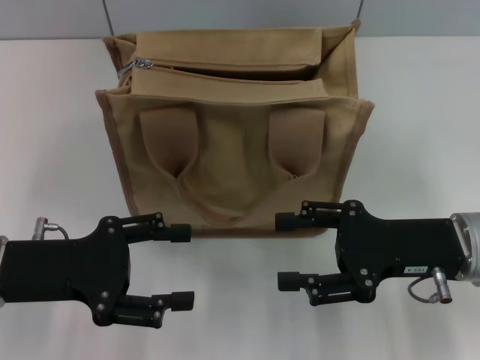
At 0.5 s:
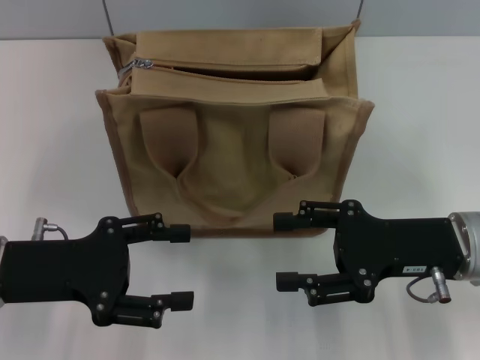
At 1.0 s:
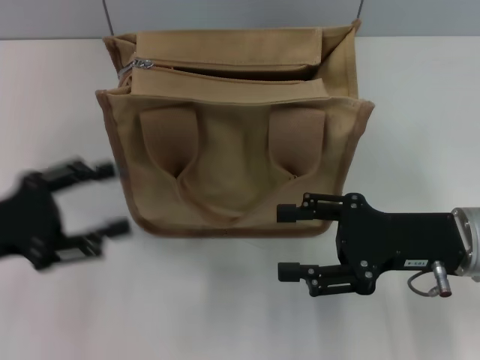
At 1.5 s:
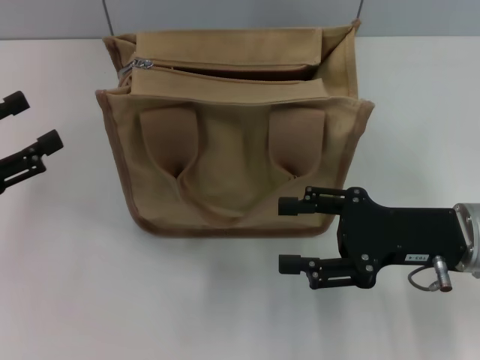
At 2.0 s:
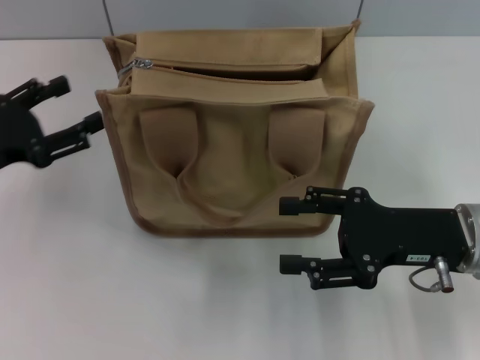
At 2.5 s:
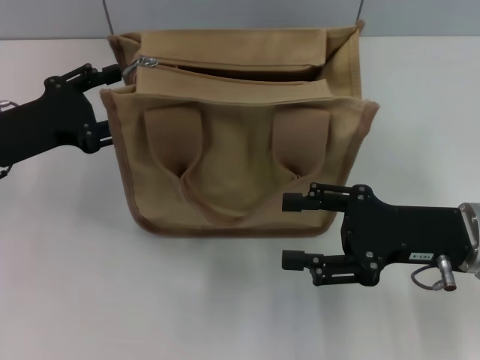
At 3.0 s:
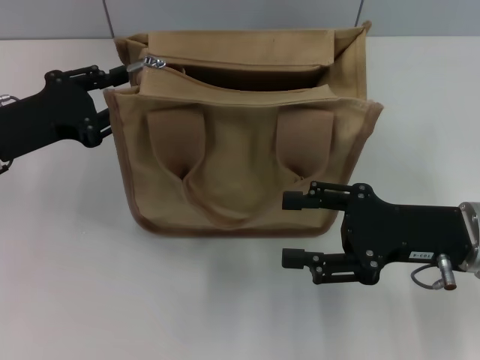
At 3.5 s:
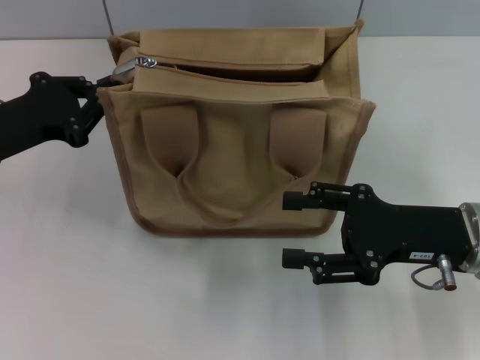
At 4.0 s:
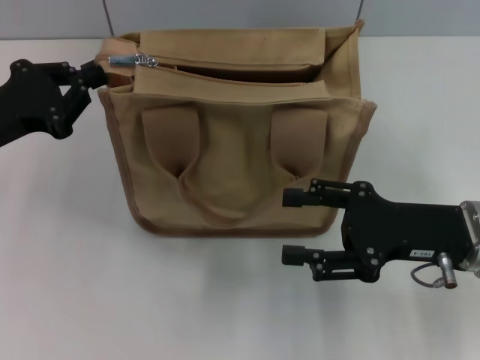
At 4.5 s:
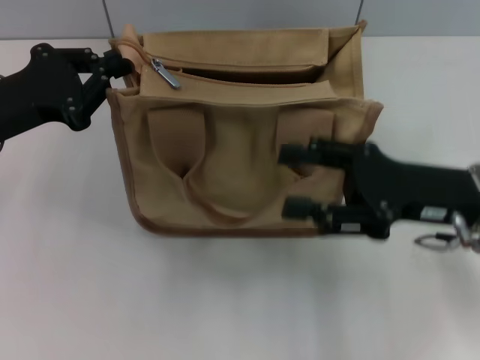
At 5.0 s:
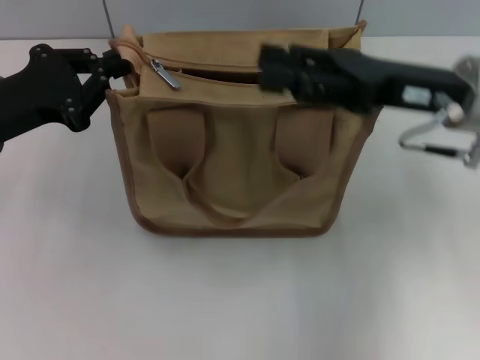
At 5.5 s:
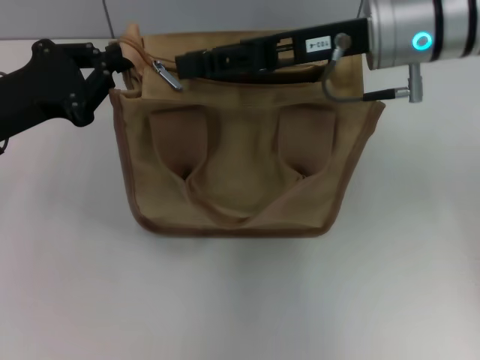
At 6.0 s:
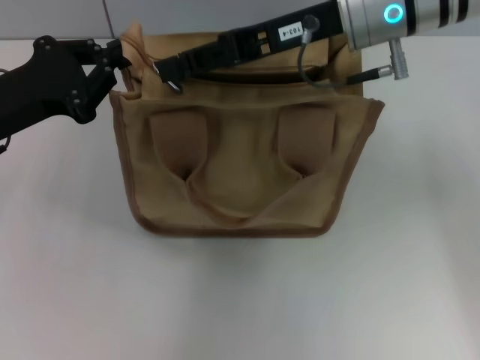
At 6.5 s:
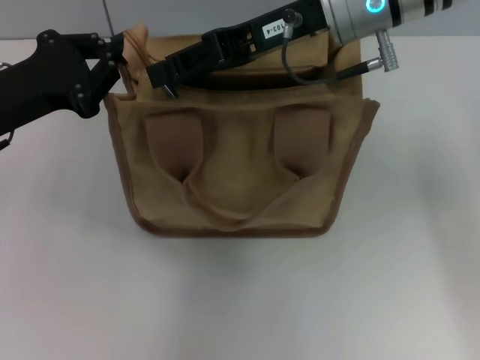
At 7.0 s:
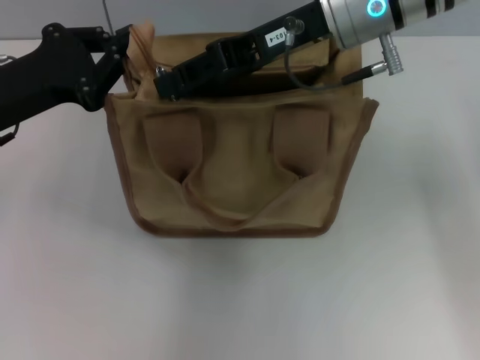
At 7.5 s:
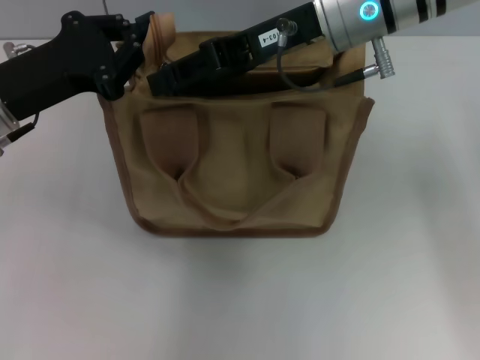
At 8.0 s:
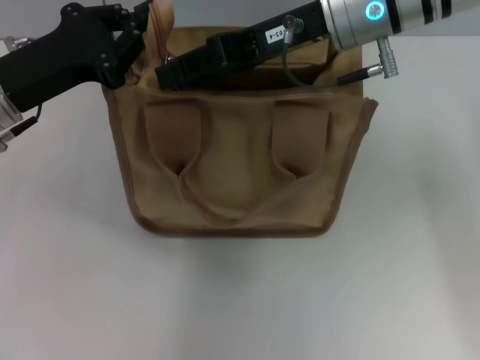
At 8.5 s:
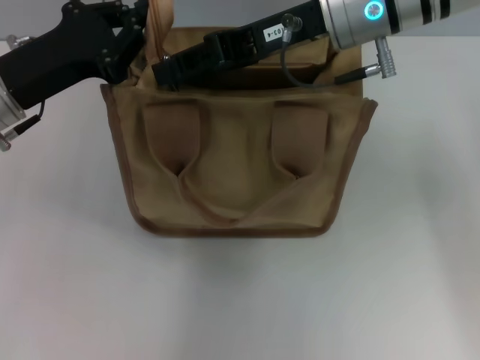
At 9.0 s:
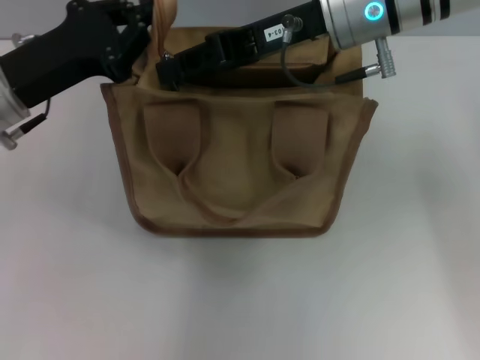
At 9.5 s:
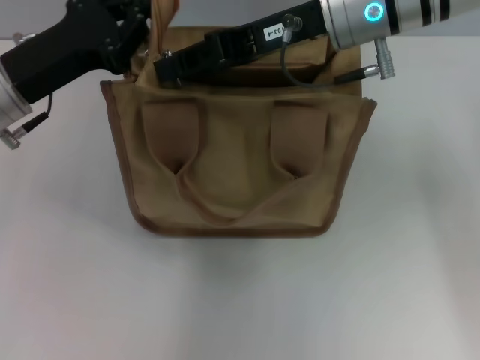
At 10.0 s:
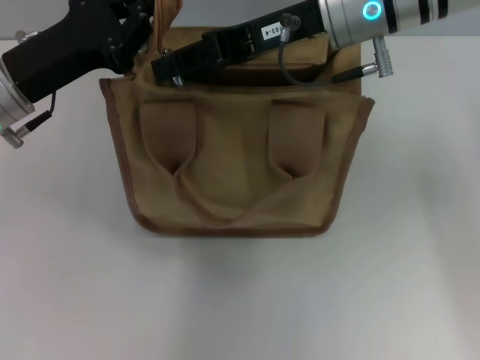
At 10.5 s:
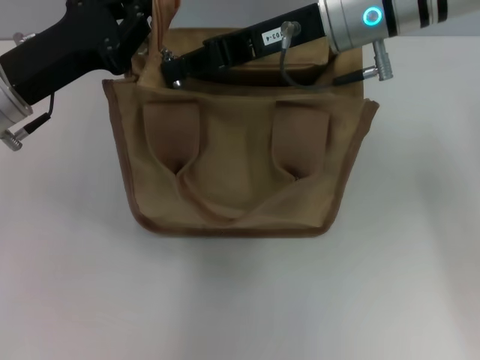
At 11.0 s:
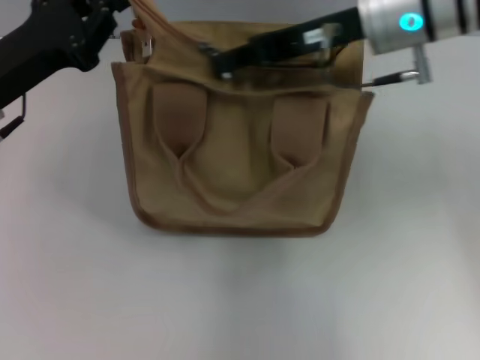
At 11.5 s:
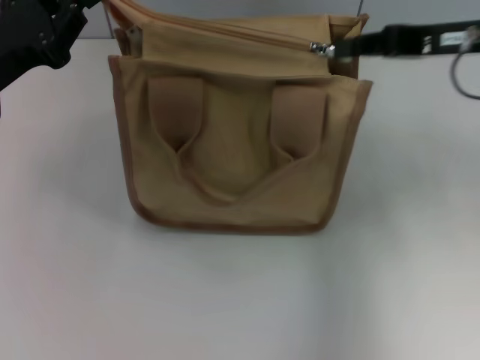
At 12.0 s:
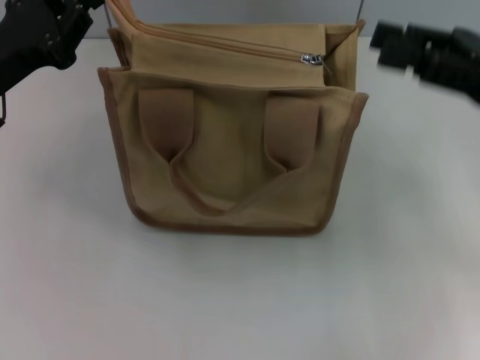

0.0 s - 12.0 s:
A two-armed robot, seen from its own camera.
Step, 0.0 s - 11.5 s: Pull up the zipper with your right hand.
0.0 s - 2.0 s: The left gripper heads to the left and forward, covering roughly 10 cm.
2.0 s - 4.0 s: The left gripper closes its fingers.
4.0 s - 6.0 s: The right gripper goes about 25 cm upward, forward and to the left, and closes.
6.0 s - 10.0 s: The grippers stay close to where they were, moving slightly.
10.0 s - 12.0 s: The right gripper shifts some 20 cm to the right and backward.

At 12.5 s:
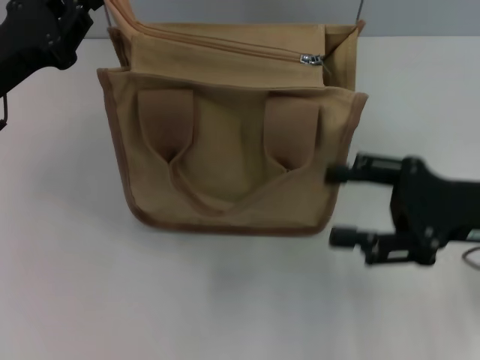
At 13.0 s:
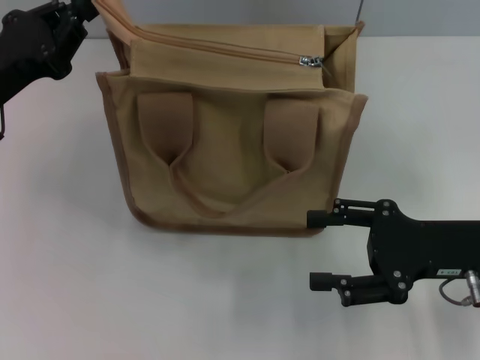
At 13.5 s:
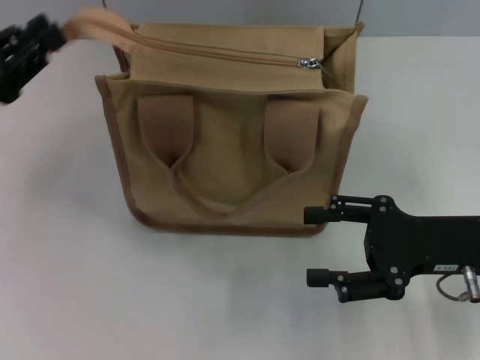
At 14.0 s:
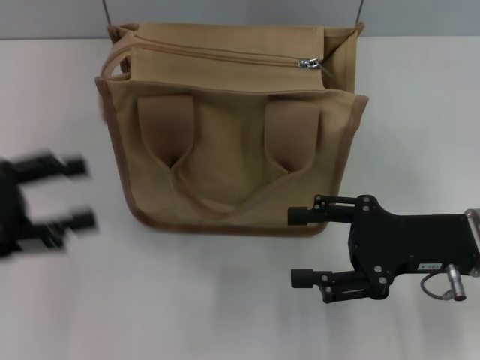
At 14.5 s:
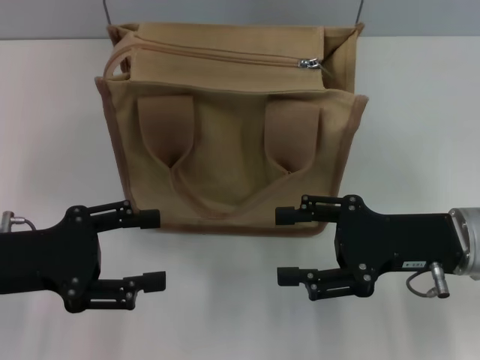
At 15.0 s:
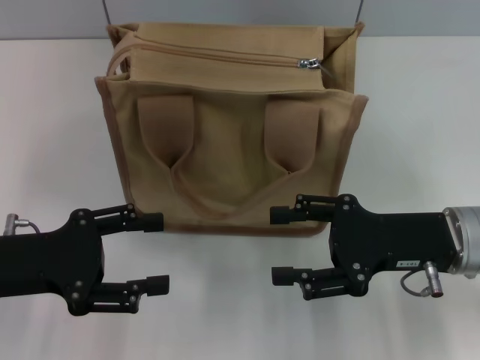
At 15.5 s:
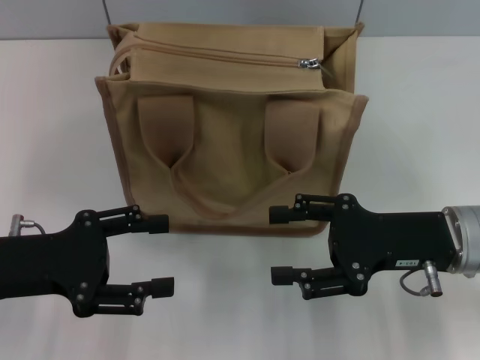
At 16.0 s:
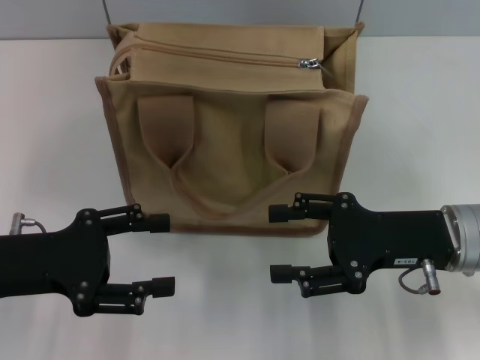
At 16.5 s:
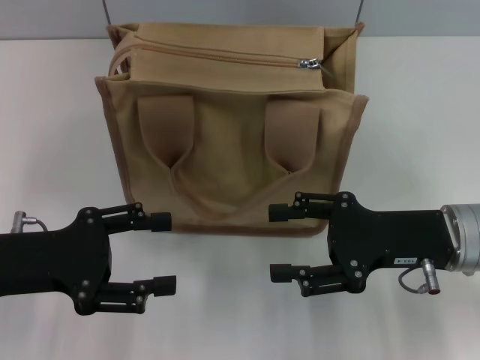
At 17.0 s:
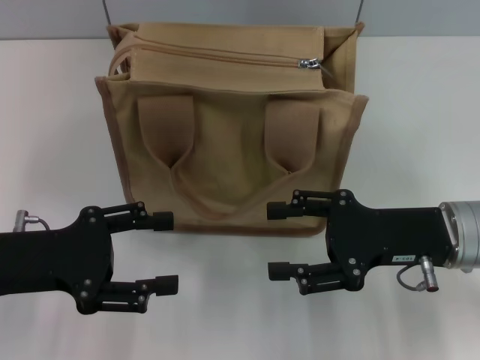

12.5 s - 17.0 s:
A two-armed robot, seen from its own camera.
Step, 12.5 s - 13.5 s: Grab the zipper with your left hand.
12.5 s - 14.5 s: The left gripper goes roughly 10 cm backward, and opens its fingers.
14.5 s - 17.0 s: Neither gripper changes place.

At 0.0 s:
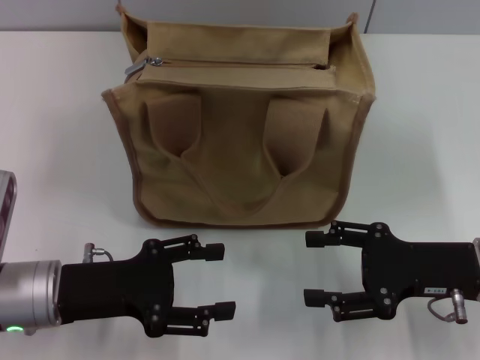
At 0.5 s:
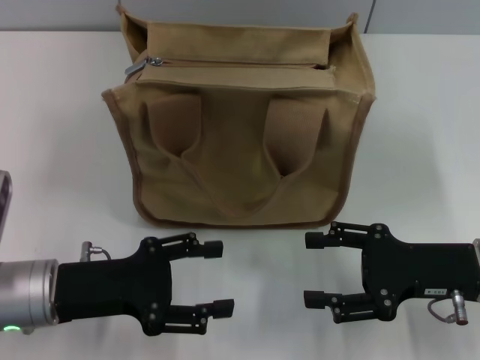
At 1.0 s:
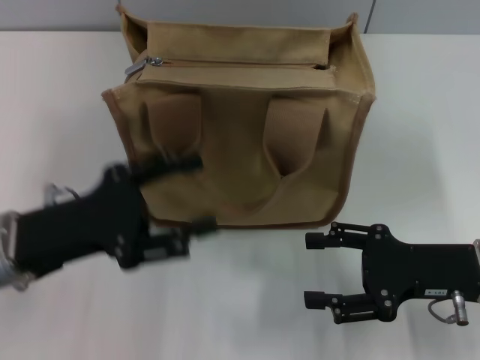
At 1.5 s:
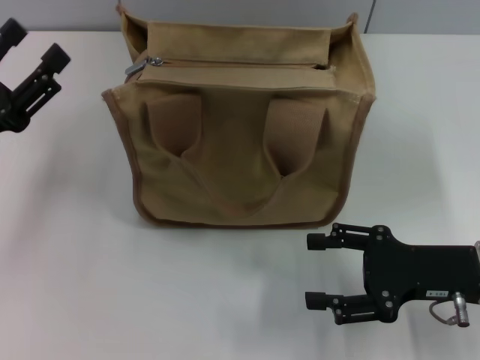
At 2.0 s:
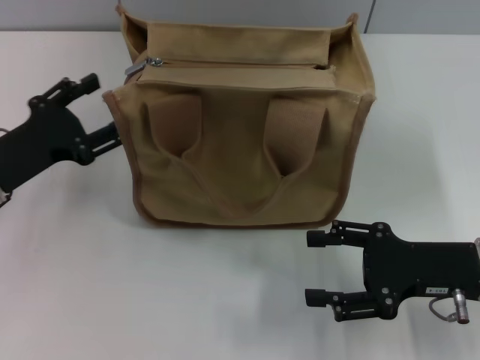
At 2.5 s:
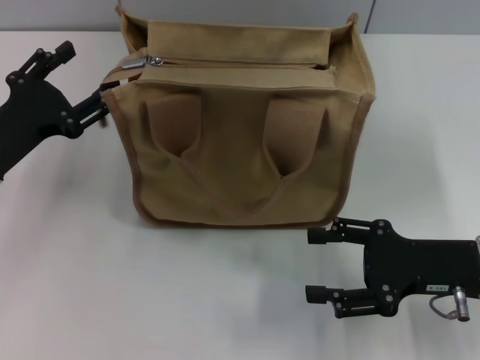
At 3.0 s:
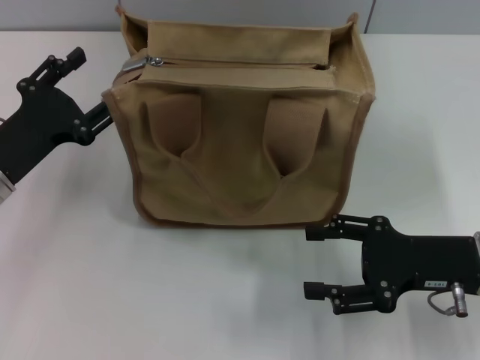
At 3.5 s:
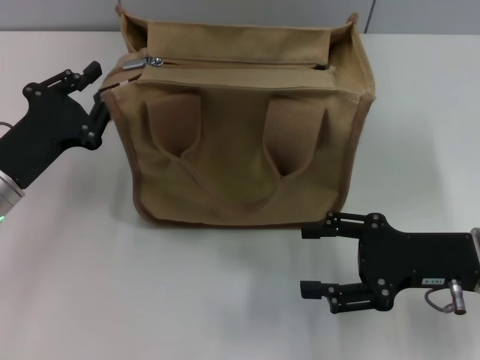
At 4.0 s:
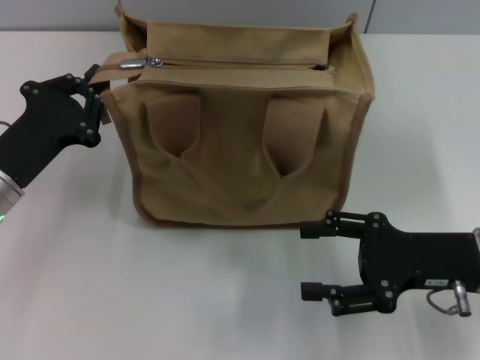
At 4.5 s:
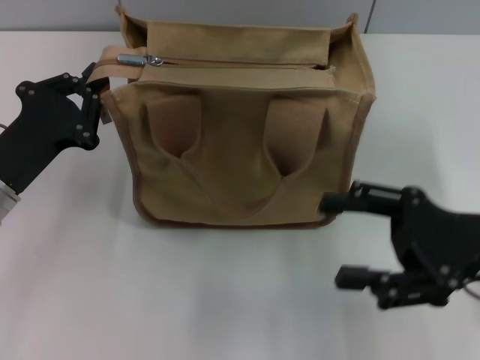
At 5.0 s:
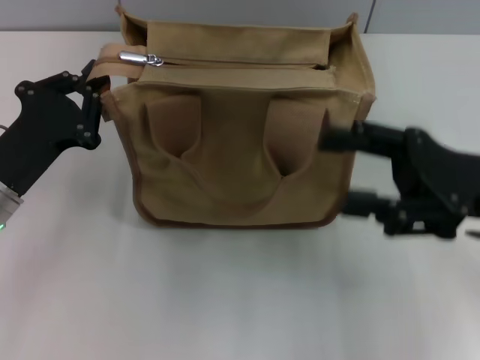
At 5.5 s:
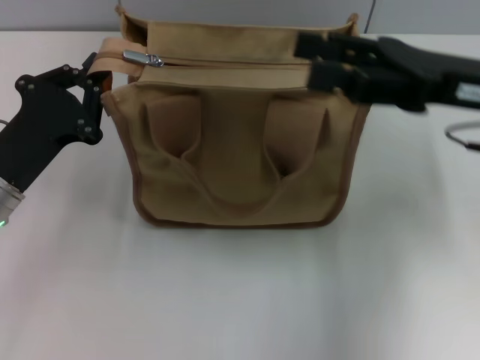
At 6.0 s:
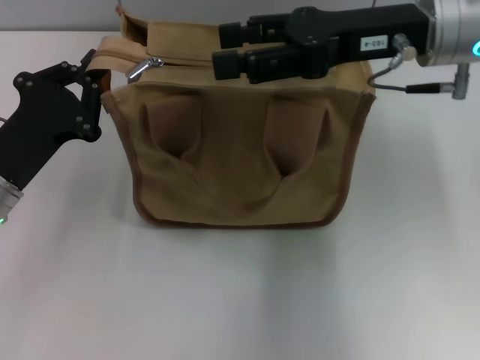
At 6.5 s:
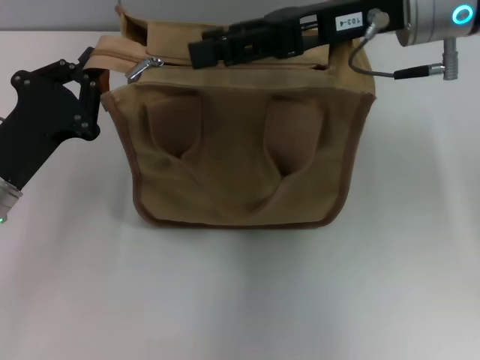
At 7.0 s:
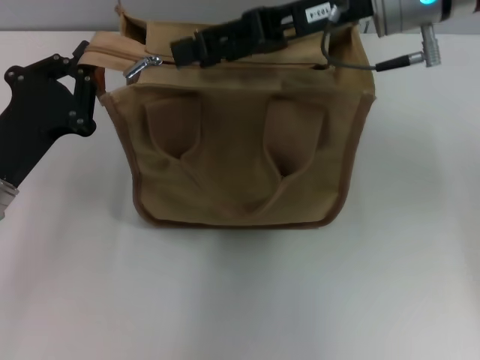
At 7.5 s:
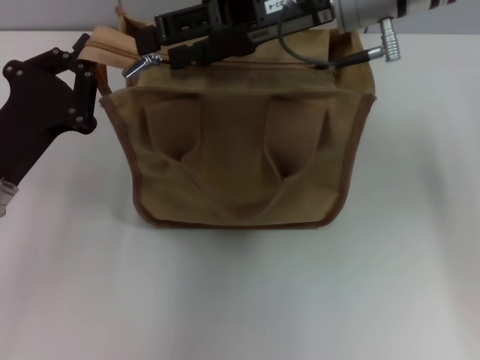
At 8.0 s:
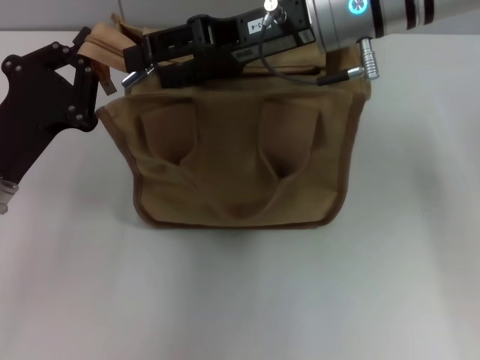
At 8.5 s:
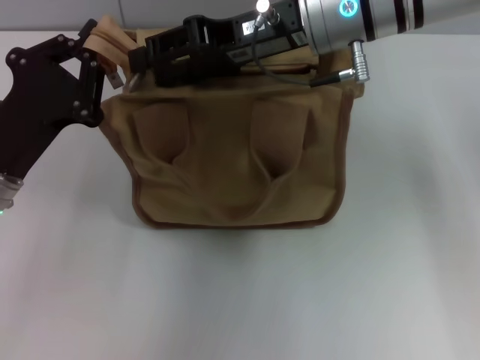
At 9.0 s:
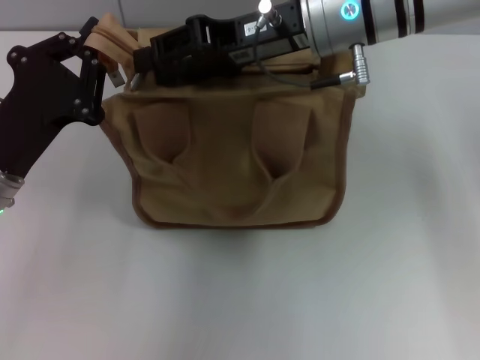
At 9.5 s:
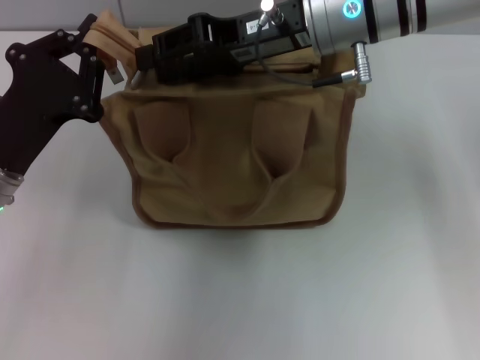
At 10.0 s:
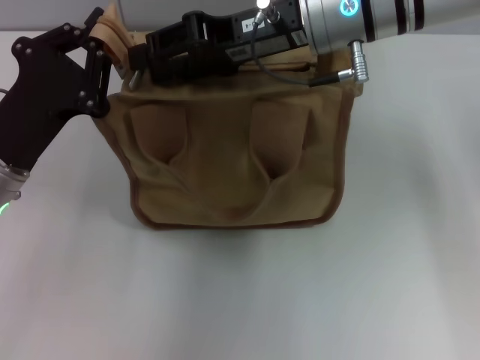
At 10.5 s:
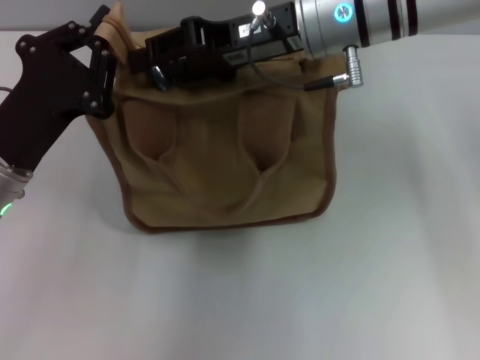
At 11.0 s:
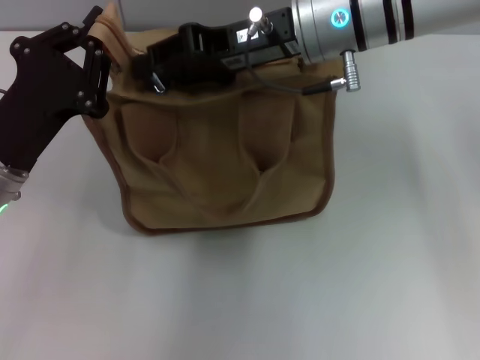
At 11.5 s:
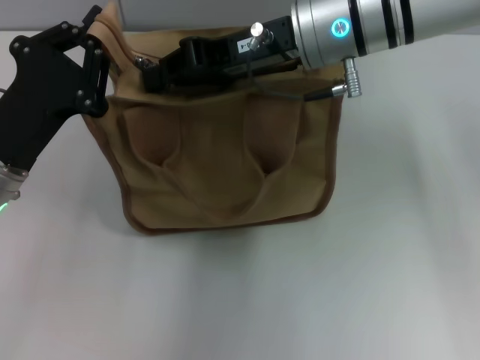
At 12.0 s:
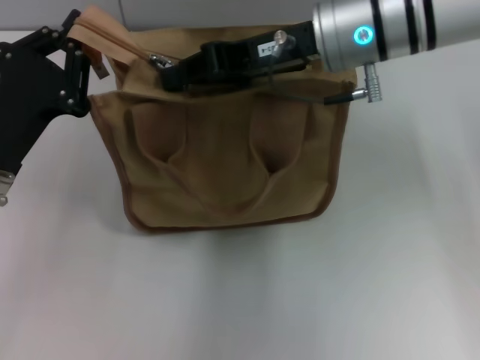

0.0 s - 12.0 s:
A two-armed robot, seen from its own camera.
0.0 s - 2.0 s: The left gripper is displaced forward and to the left by approximately 10 cm.
2.0 s - 4.0 s: The left gripper closes up.
4.0 s - 6.0 s: The right gripper heads upward, forward and to the left, covering approximately 20 cm.
6.0 s - 8.0 s: The right gripper is displaced to the left by about 10 cm.
8.0 s - 10.0 s: The right gripper closes its fingers.
10.0 s - 12.0 s: The right gripper closes up.
